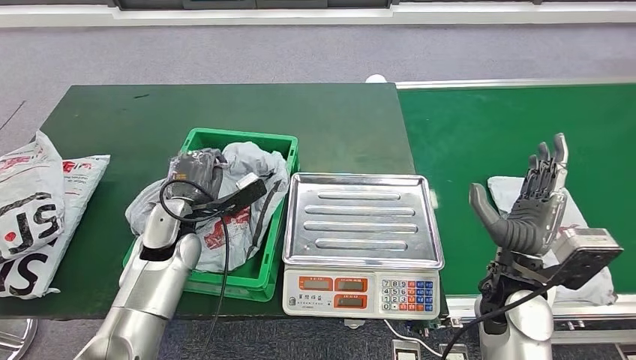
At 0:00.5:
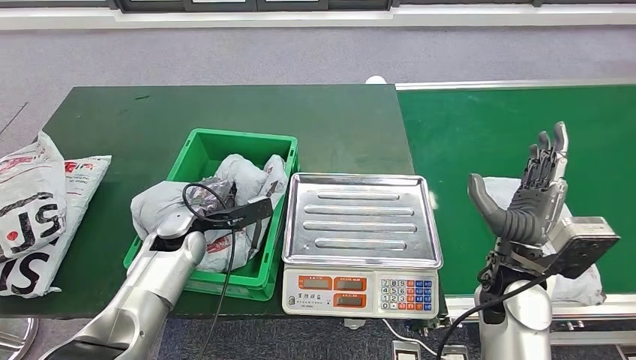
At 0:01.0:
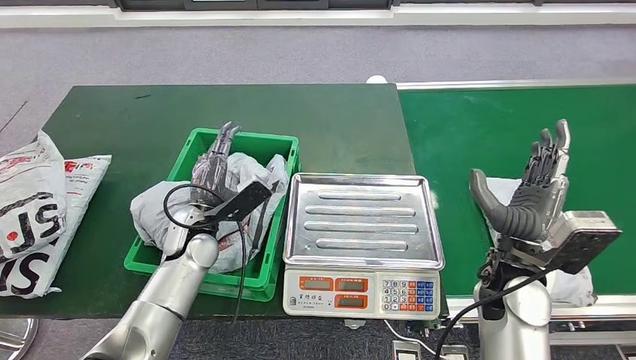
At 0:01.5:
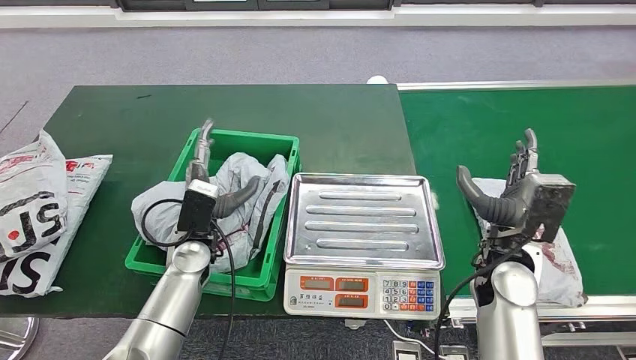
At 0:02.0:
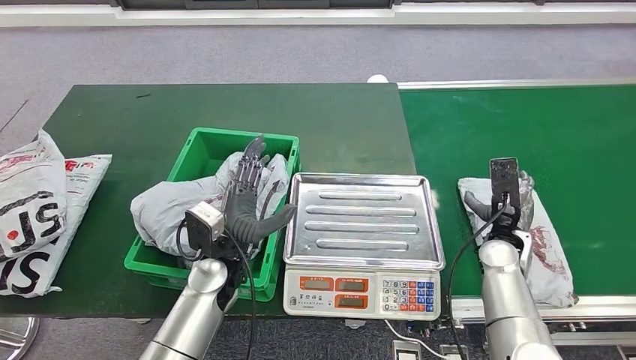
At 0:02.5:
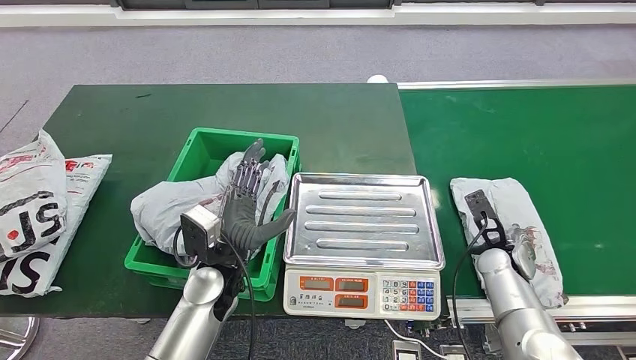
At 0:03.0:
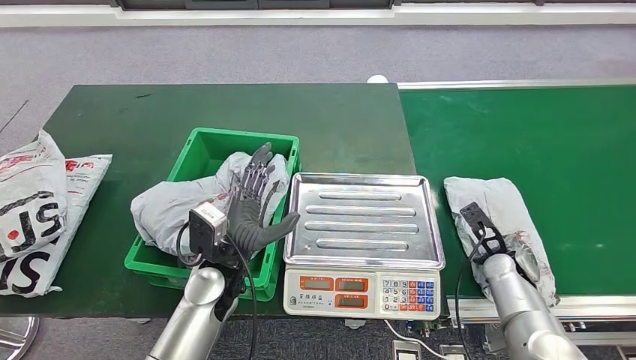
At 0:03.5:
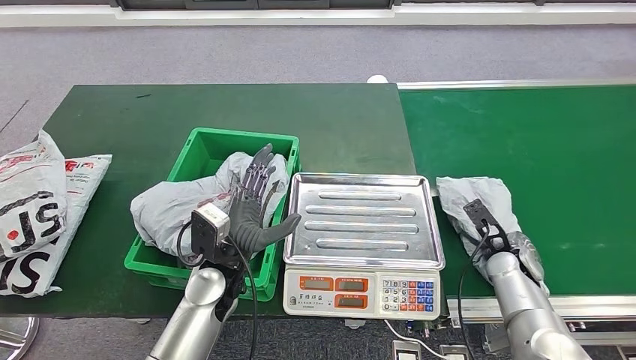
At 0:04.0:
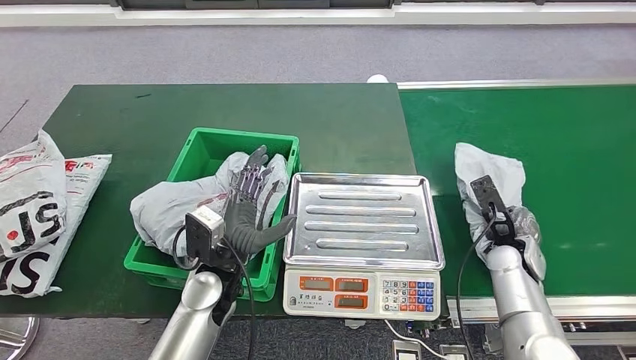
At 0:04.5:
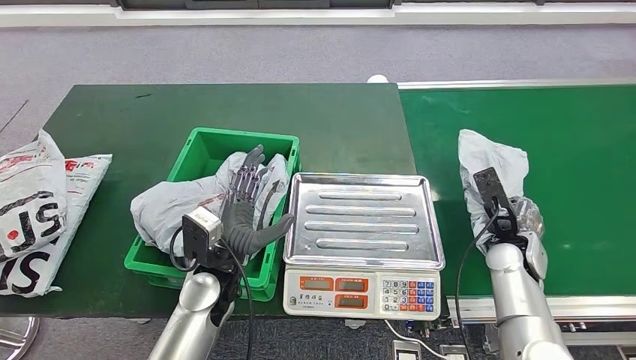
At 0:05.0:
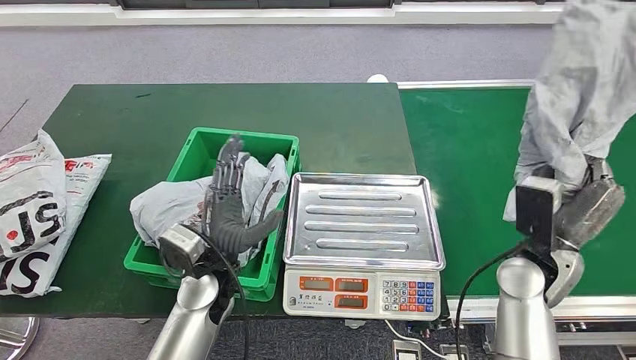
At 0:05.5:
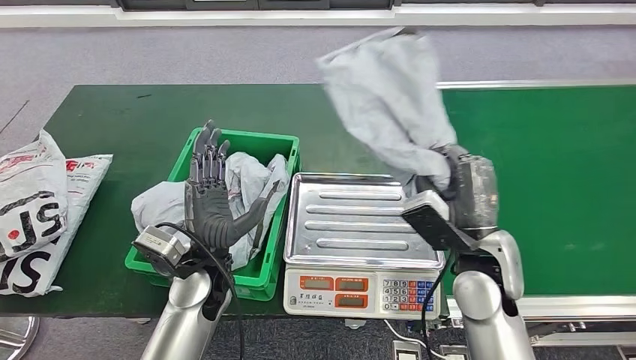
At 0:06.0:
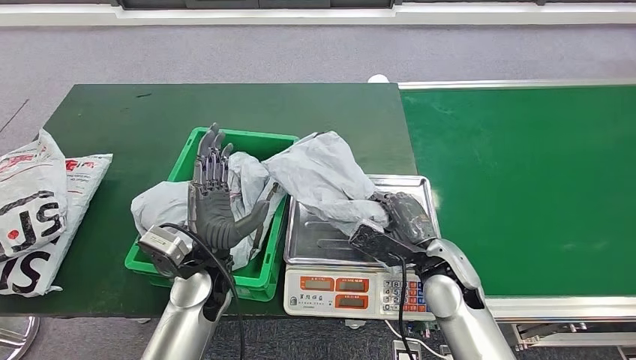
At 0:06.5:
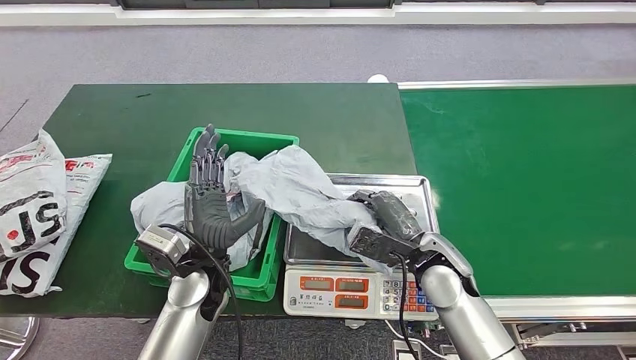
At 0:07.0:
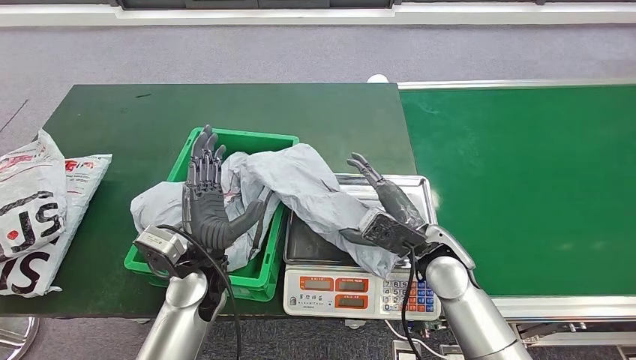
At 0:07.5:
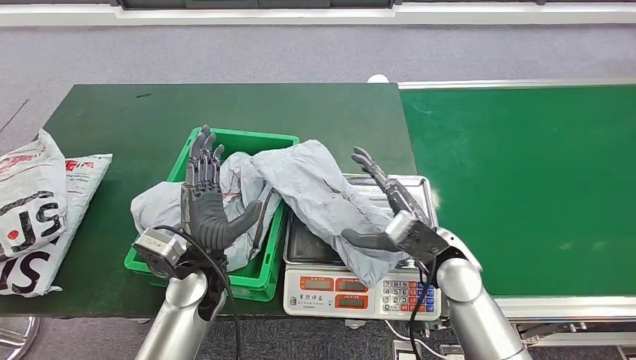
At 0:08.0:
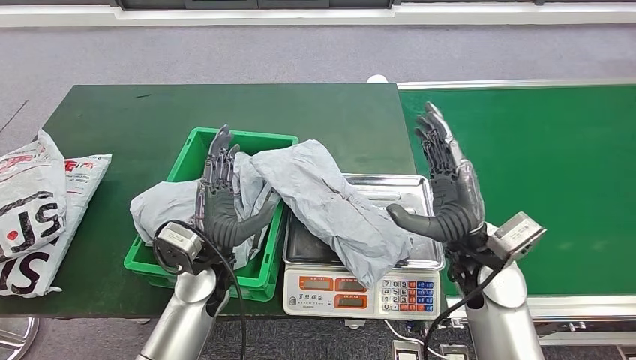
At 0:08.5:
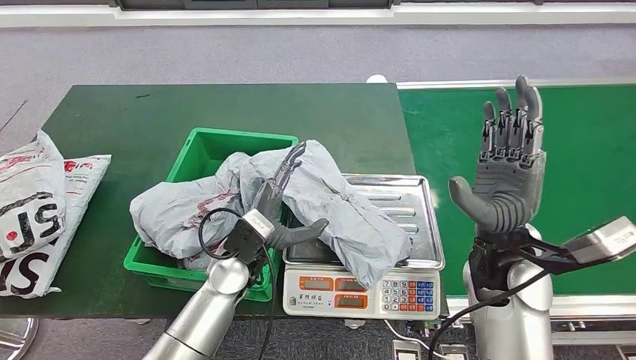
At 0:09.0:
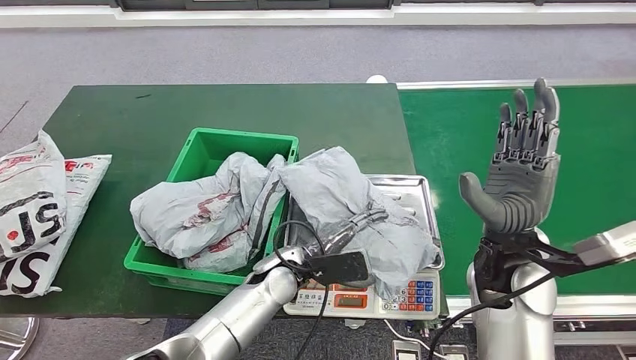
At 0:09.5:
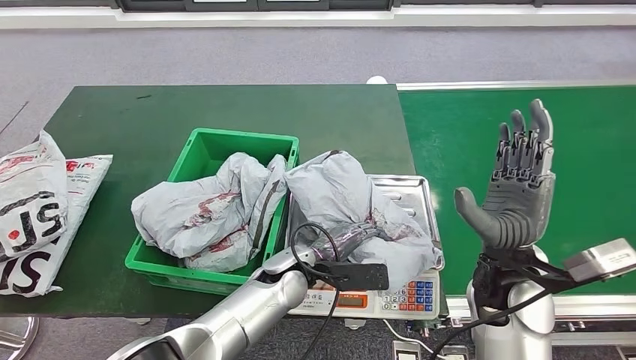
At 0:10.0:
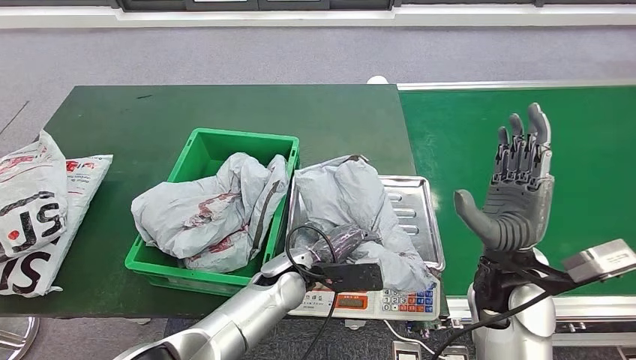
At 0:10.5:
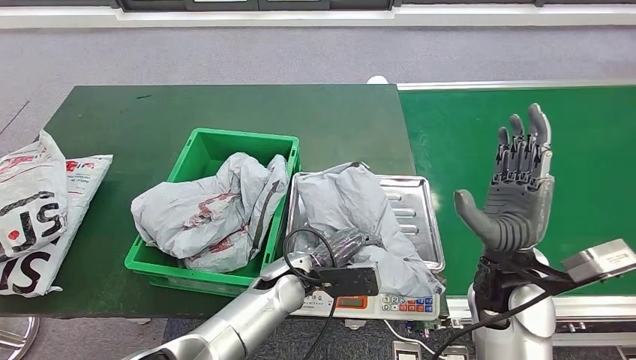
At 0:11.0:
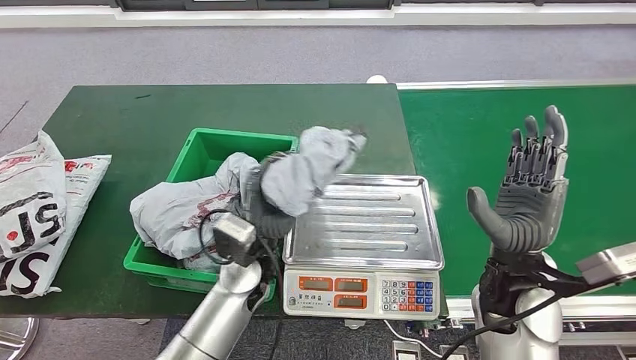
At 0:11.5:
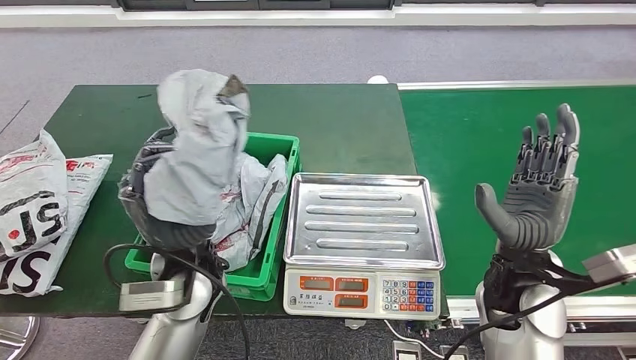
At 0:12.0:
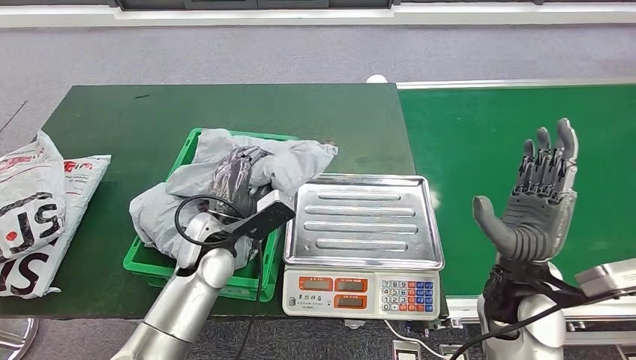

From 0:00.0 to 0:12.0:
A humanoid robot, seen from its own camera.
Step, from 0:01.5 to 0:05.0: Pick up the parcel from the conveyor belt.
Step, from 0:05.5 to 0:08.0: Place the parcel onto the inbound machine.
Step, from 0:08.5 to 0:11.0: Pick up the parcel from the inbound machine.
From 0:06.0 to 0:08.0: The right hand travels upward by roughly 5 cm.

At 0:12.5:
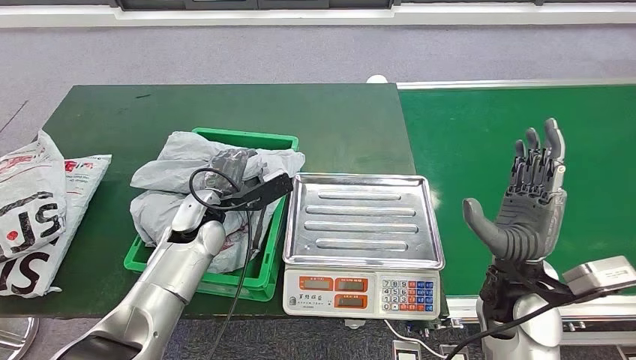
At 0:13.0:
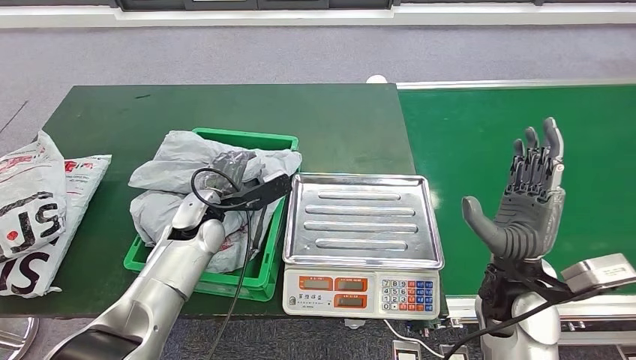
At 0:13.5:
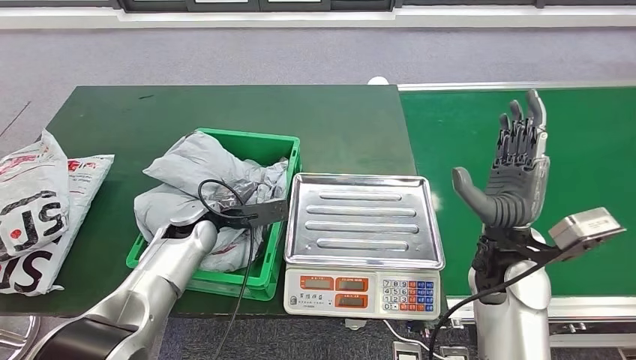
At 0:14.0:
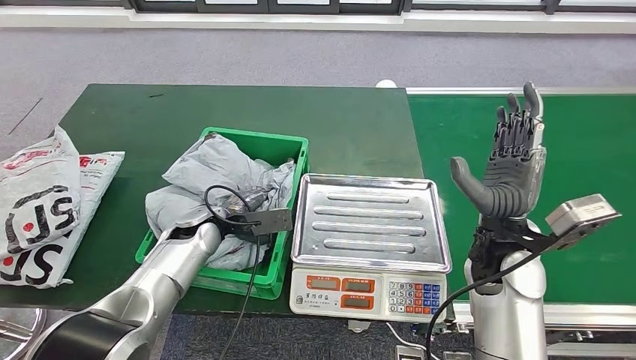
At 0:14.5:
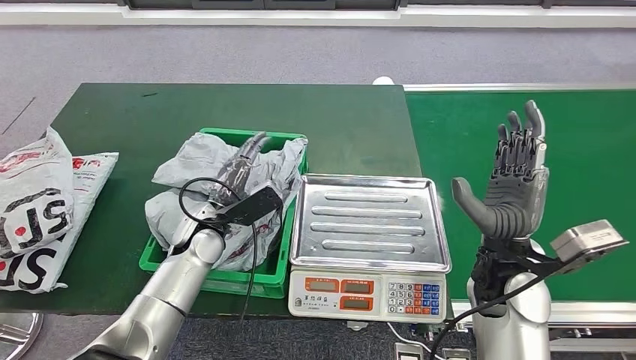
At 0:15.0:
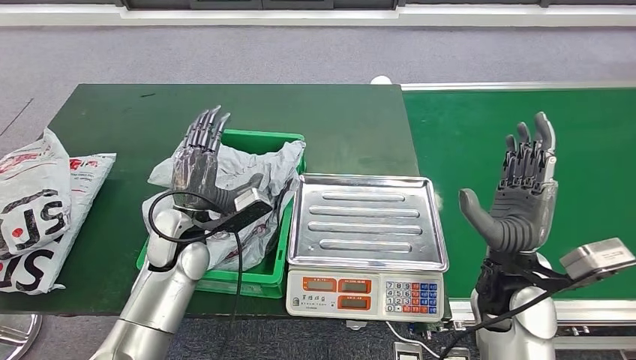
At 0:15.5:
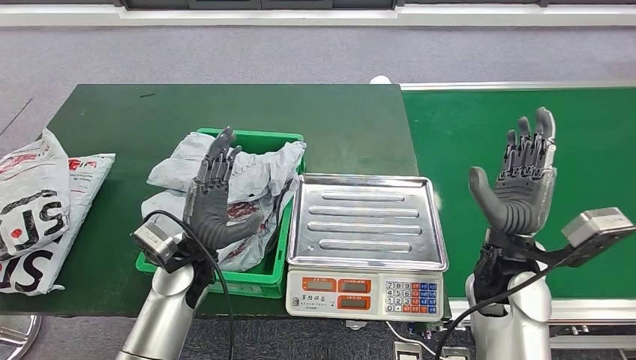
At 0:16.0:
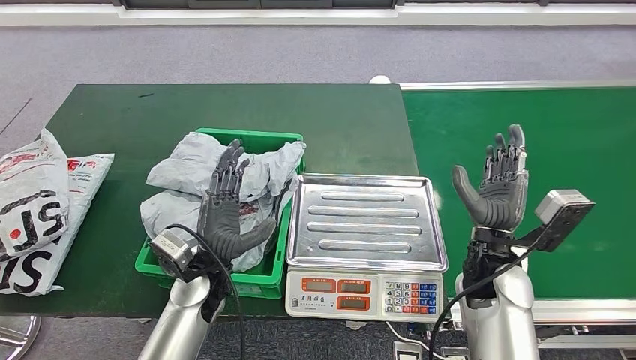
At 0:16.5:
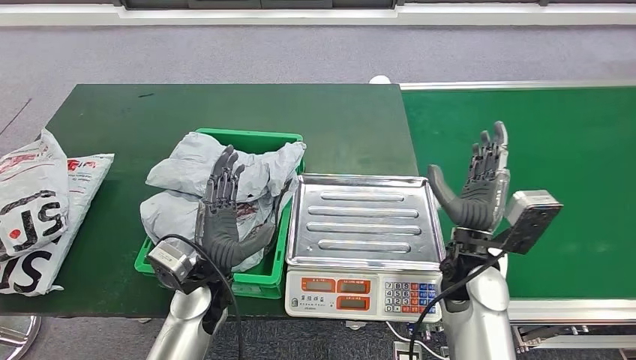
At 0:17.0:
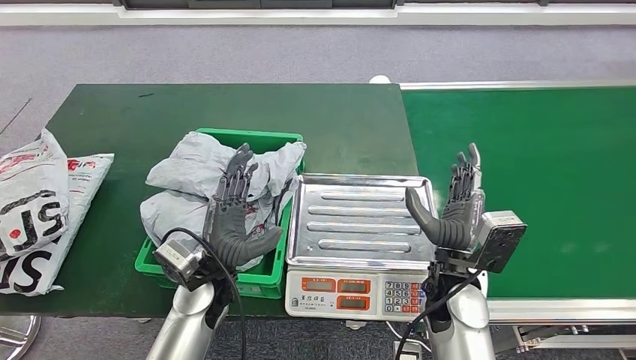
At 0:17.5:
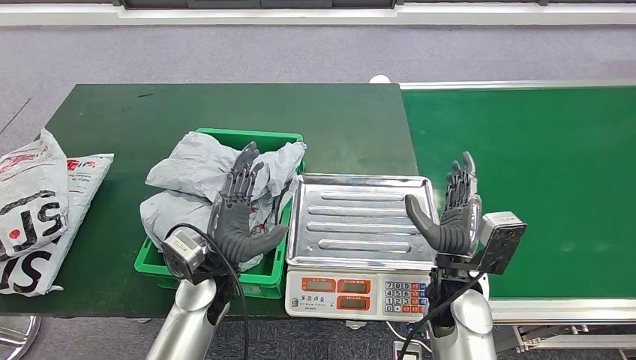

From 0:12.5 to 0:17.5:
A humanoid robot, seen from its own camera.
Step, from 0:12.5 to 0:17.5: Place the parcel into the delivery box.

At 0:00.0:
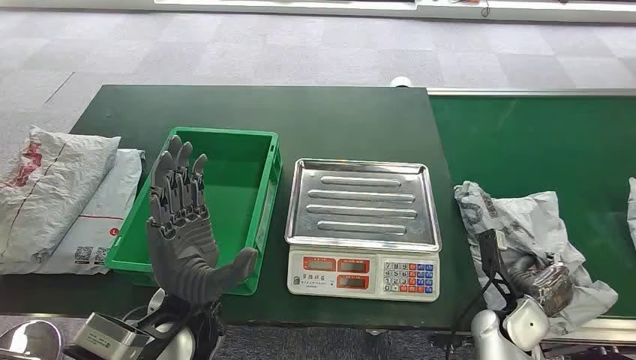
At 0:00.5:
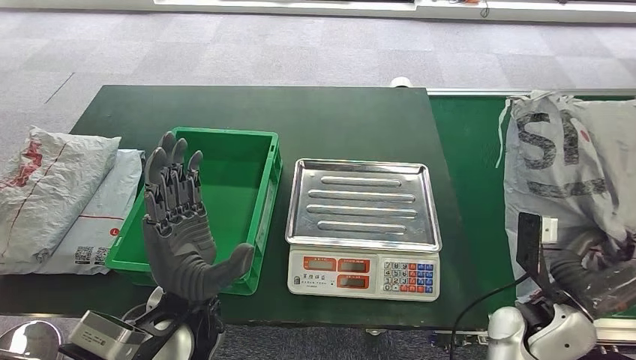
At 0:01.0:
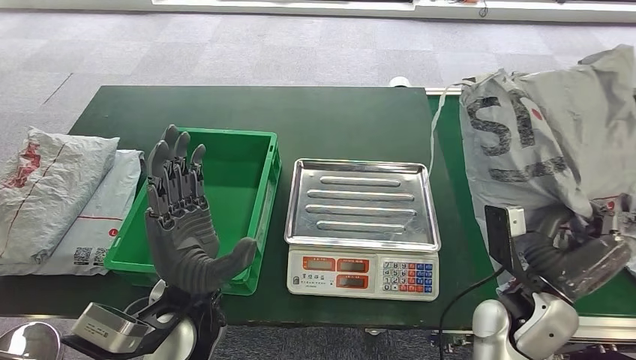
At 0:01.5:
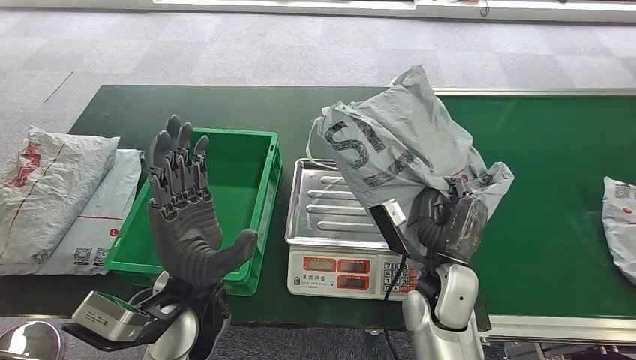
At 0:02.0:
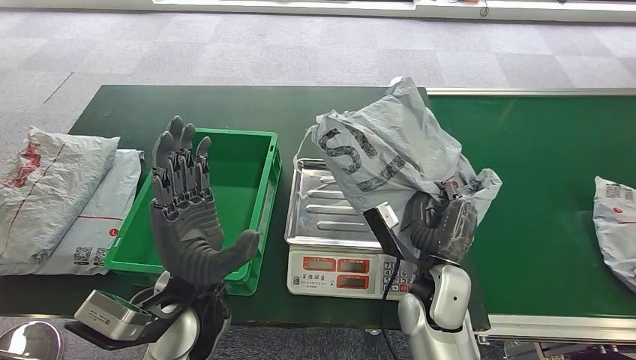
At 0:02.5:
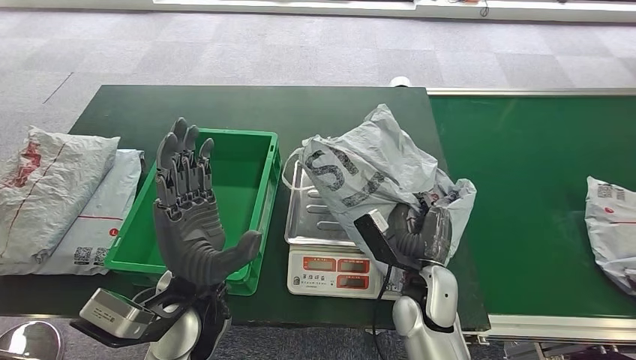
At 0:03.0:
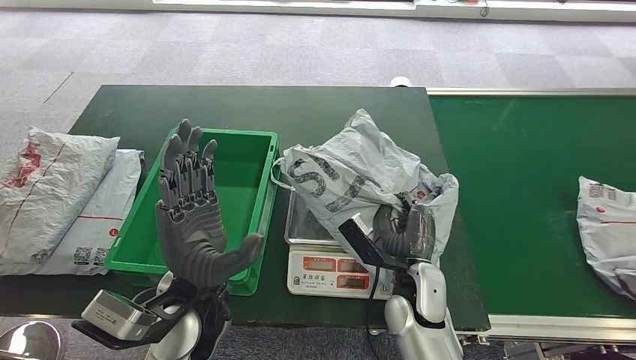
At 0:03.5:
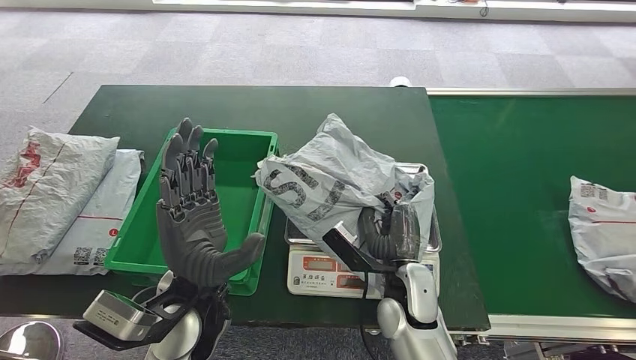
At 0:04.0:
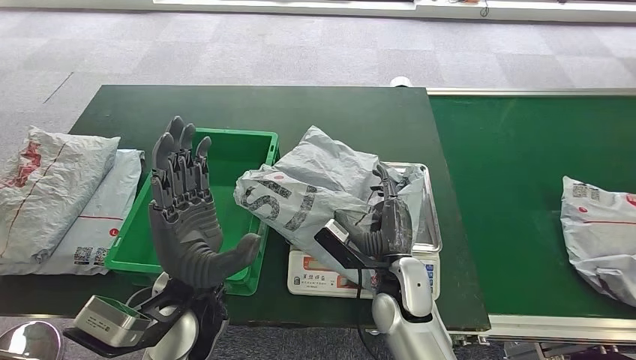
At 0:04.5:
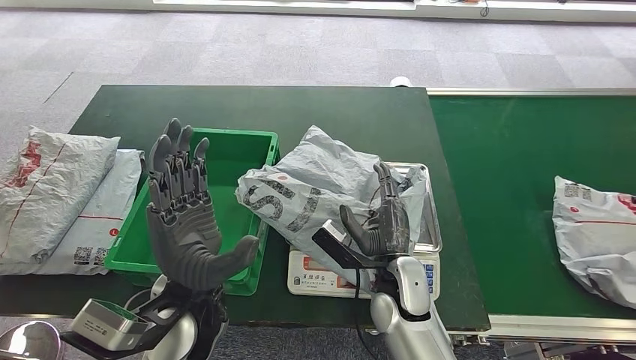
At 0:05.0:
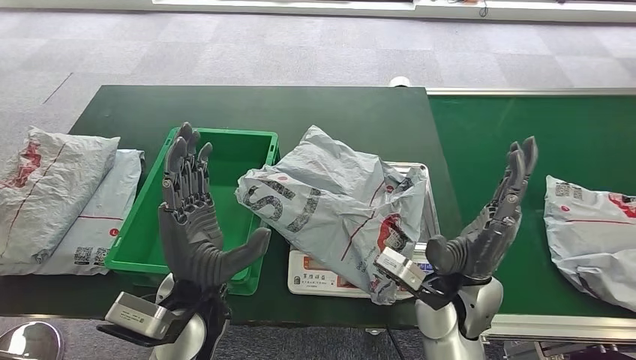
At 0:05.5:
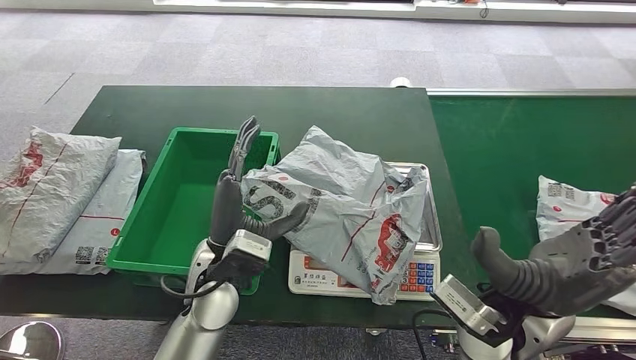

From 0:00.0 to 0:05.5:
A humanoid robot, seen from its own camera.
Step, from 0:00.0 to 0:00.5: Take the parcel off the conveyor belt.
Step, from 0:01.0 to 0:04.0: Place the parcel onto the inbound machine.
